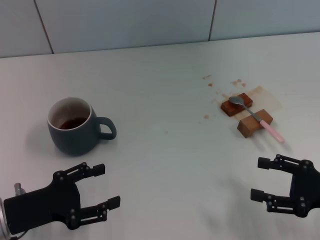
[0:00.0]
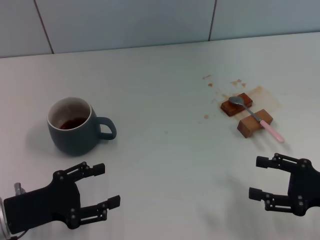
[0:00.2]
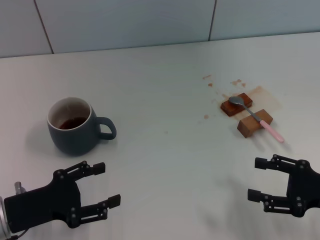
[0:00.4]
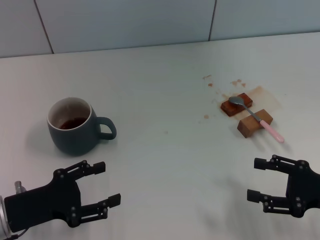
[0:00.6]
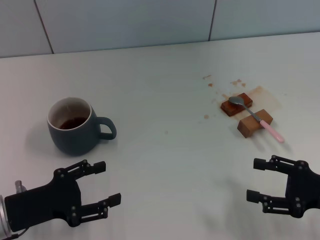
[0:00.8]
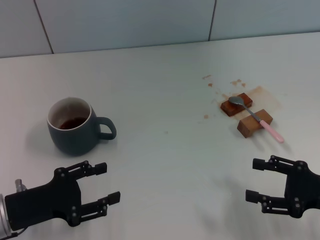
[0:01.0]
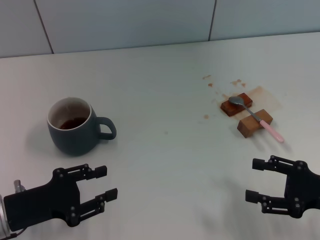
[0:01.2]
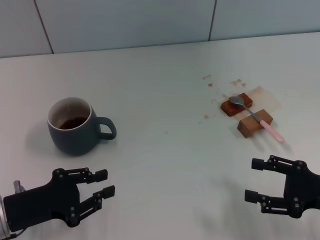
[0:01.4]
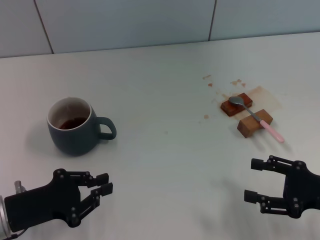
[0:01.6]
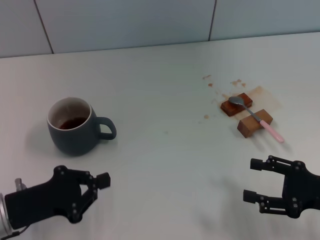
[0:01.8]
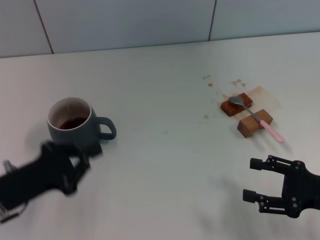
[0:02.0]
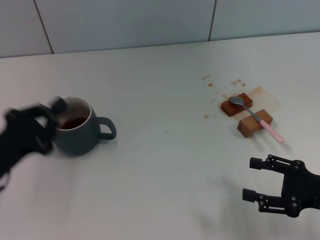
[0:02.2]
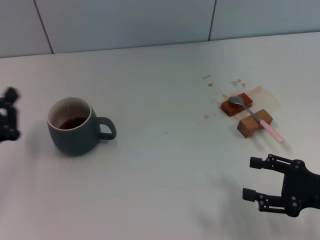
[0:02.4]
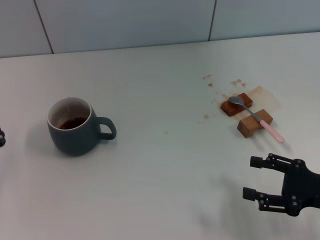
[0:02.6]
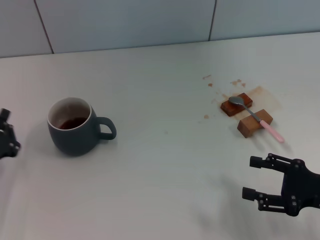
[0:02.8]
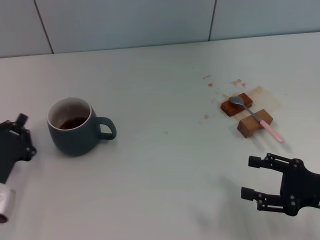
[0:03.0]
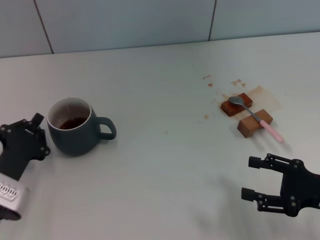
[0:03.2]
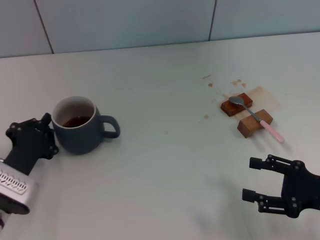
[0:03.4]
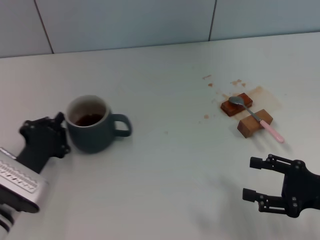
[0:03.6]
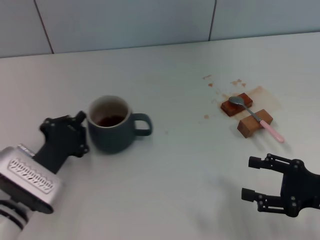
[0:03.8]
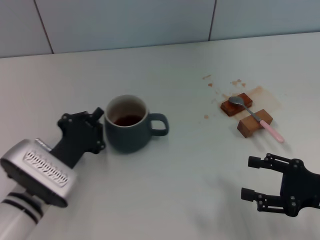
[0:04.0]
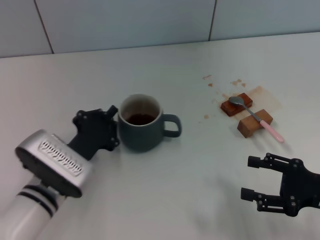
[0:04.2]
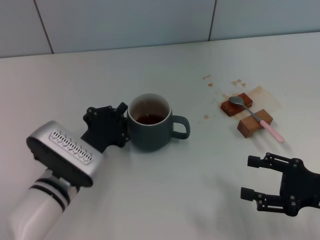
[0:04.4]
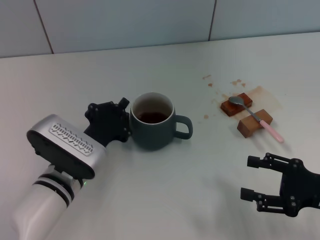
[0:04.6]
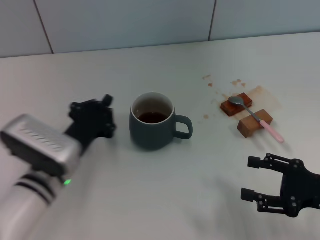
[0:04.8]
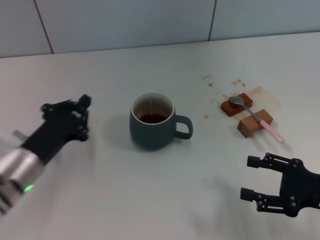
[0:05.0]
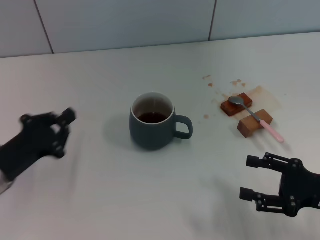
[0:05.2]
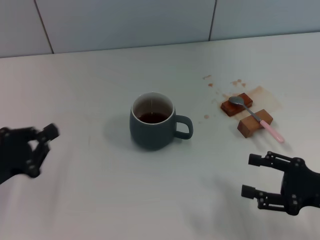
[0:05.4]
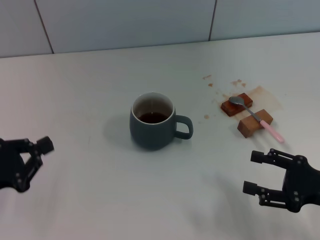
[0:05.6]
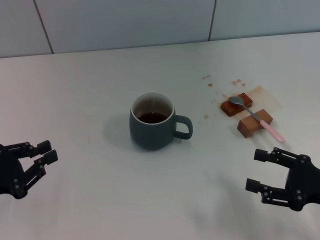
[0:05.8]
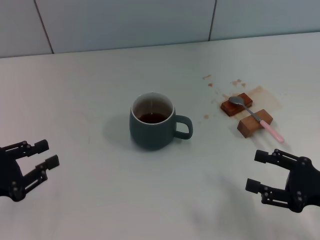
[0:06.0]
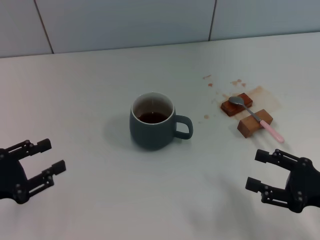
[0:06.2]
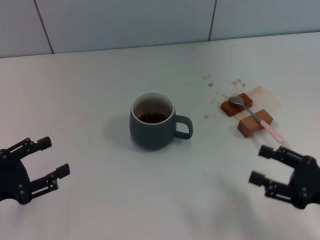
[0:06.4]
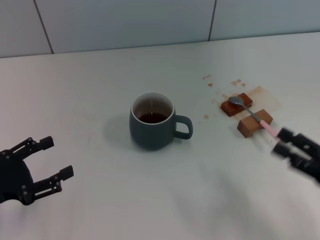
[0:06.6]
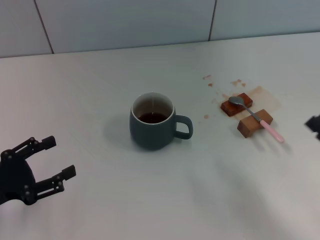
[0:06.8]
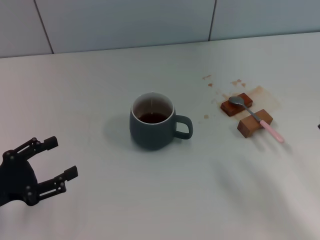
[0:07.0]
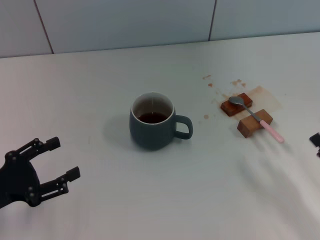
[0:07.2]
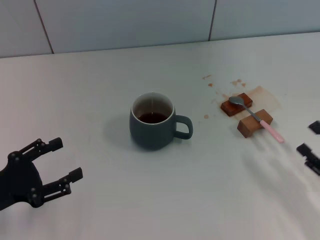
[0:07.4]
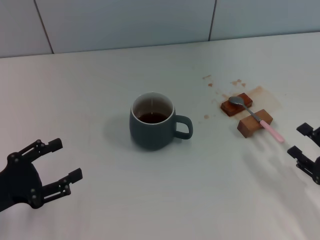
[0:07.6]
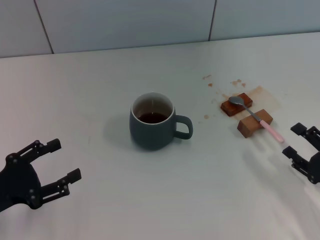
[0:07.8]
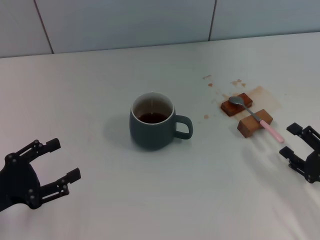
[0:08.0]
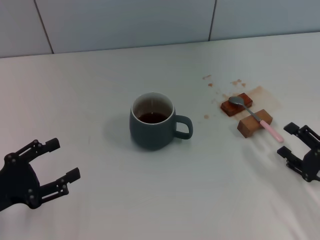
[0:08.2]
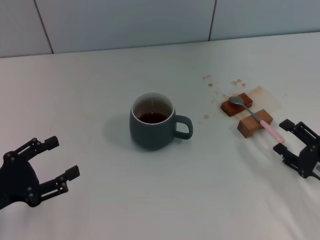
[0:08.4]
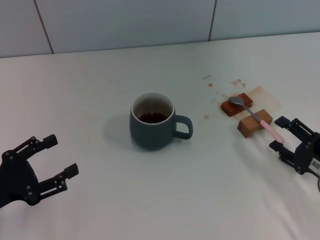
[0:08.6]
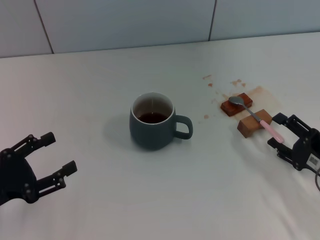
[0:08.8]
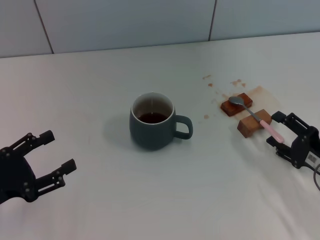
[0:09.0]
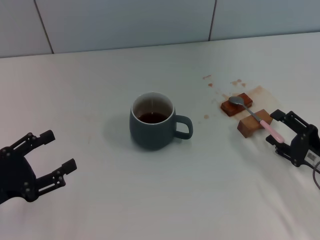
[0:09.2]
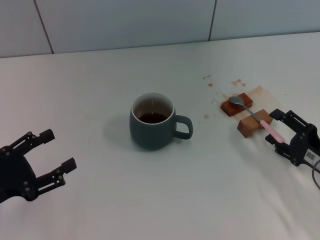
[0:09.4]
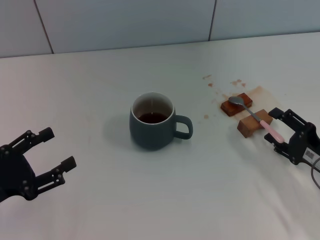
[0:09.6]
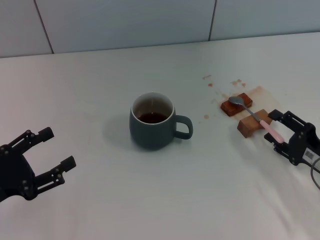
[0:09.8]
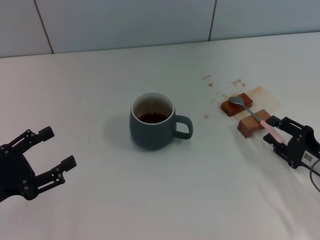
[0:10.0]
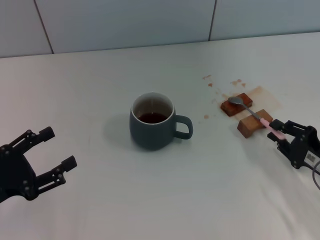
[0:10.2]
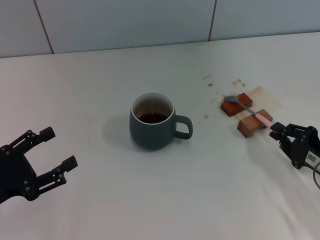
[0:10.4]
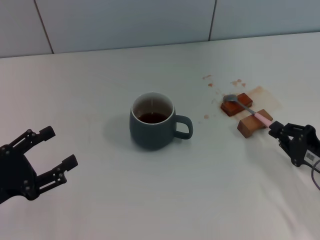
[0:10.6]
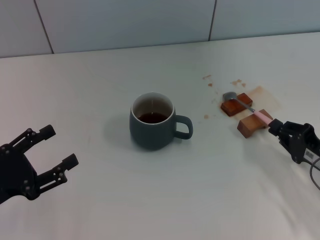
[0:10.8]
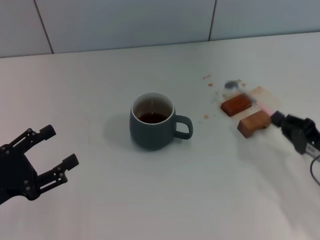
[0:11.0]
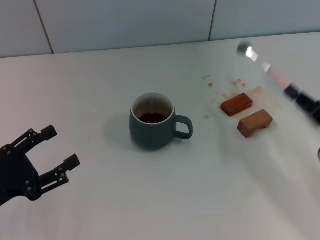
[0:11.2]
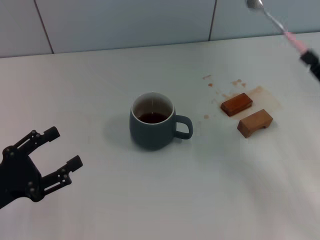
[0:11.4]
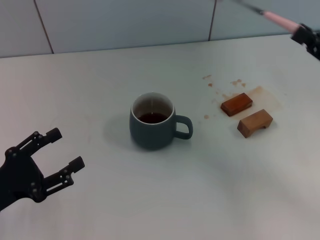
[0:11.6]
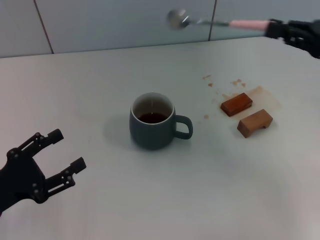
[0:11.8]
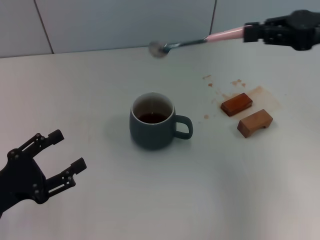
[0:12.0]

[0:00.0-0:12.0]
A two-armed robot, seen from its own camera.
Task of the whole recording: Move the grey cup to the center, lift the pink spoon, stir it three times in the cup, and put the spoon into the cup.
Step, 0:00.0 to 0:04.8: Move the cup with coffee to the center of view with the left gripper.
Step, 0:05.0 to 0:11.0: Pick up the spoon with the right gripper.
0:00.0 to 0:01.6: The left gripper closes its fingers.
0:01.6 to 0:03.0: The left gripper closes its fingers.
0:03.0 to 0:04.4: The left gripper heads to the right, covering approximately 10 cm.
0:04.4 to 0:06.0: The left gripper travels to the left by about 20 cm.
0:06.0 to 0:07.6: The left gripper opens up.
0:07.6 to 0:09.0: There are only small adjustments of the grippers.
0:09.0 to 0:10.4: The right gripper closes its fingers.
0:10.4 to 0:12.0: The right gripper is displaced upward and forward by approximately 25 cm.

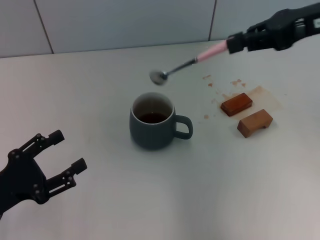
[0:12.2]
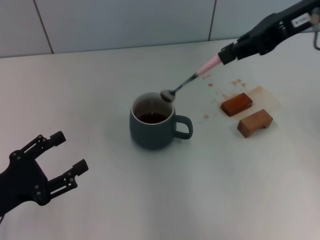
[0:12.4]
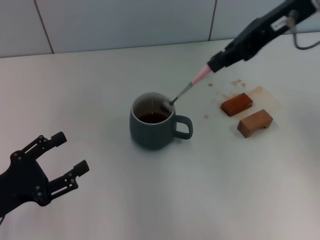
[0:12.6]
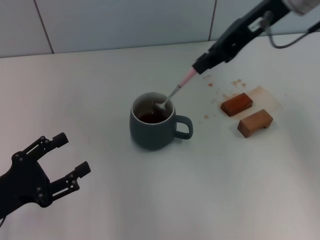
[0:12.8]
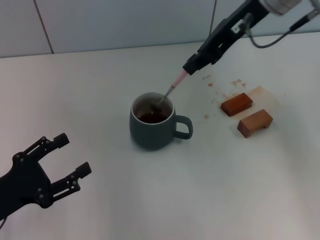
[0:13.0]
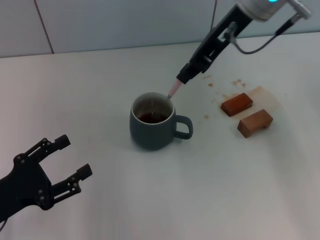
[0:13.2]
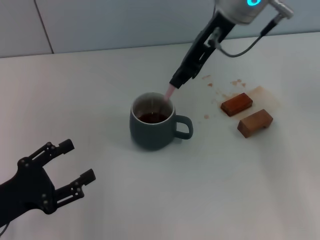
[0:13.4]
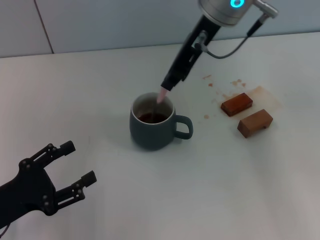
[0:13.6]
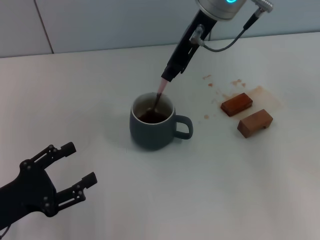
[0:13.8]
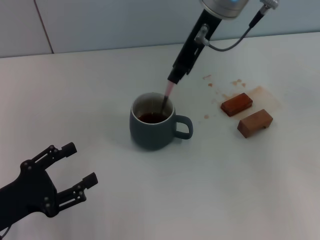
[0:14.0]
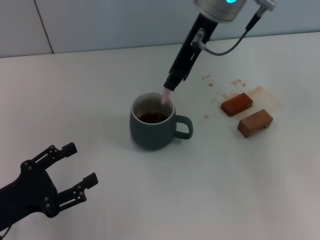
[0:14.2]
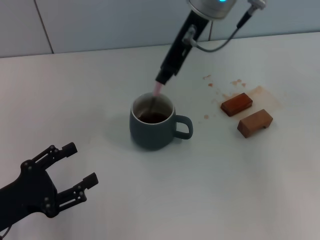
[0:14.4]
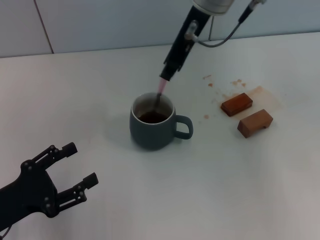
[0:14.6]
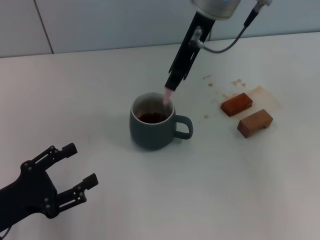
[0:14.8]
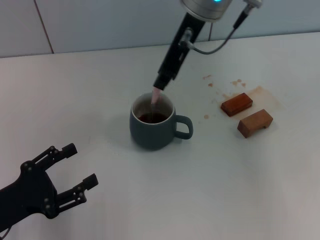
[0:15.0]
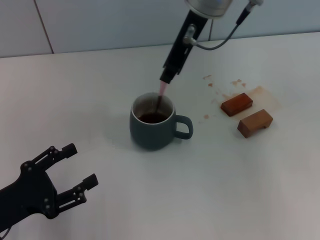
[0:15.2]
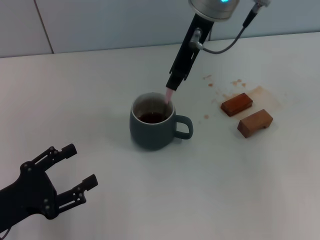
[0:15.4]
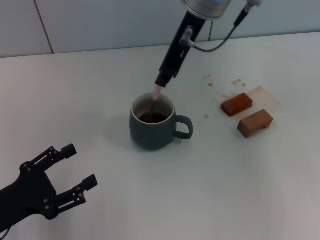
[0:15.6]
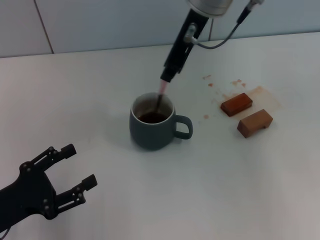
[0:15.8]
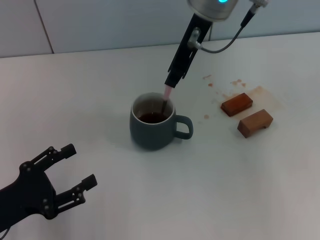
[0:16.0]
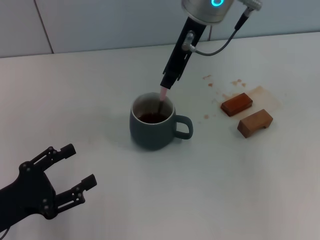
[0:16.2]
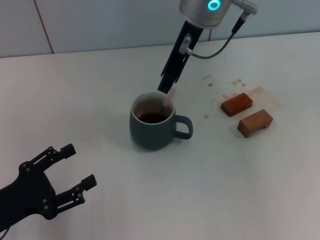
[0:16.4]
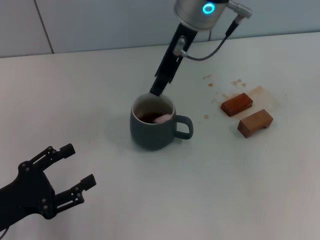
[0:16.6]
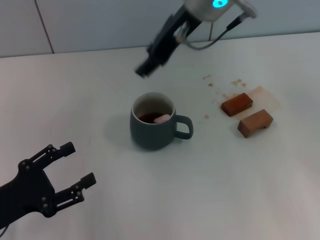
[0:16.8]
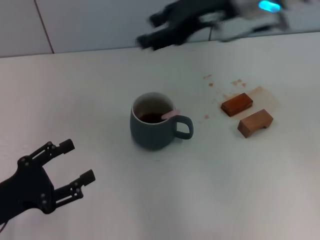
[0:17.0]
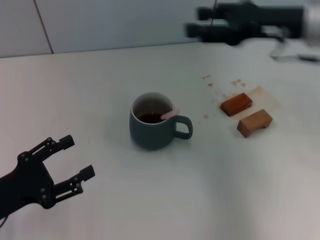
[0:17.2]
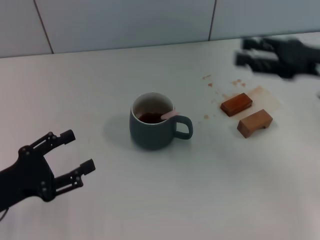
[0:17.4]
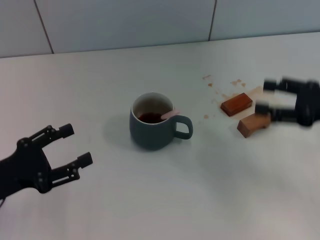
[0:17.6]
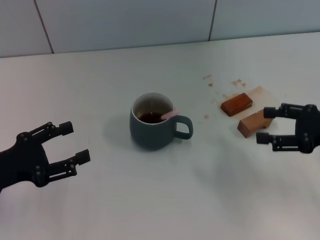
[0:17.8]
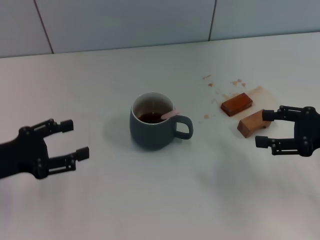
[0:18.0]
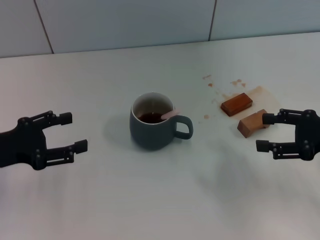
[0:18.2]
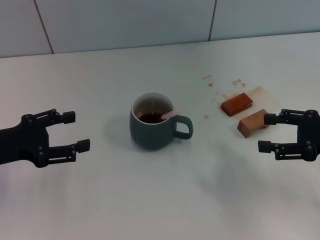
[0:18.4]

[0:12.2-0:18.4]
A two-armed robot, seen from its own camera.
Task of the whole recording: Move the grey cup to the center, lift the pink spoon, stir it three times in the cup, and put the spoon into the cup.
Step, 0:12.2 to 0:16.6: Stir the coffee in the cup with the right gripper.
0:12.2 to 0:13.8: The right gripper is displaced to the left by about 15 cm.
0:13.8 to 0:15.4: There are only small adjustments of the grippers.
0:15.4 to 0:16.8: The right gripper opens up.
0:16.8 to 0:18.4: The left gripper moves forward and upward, about 10 cm; the right gripper moves to the right, downward and backward, approximately 35 cm, and opens.
